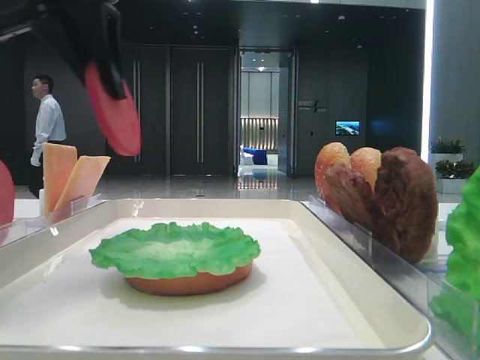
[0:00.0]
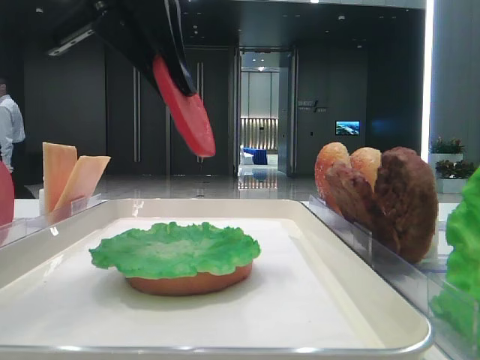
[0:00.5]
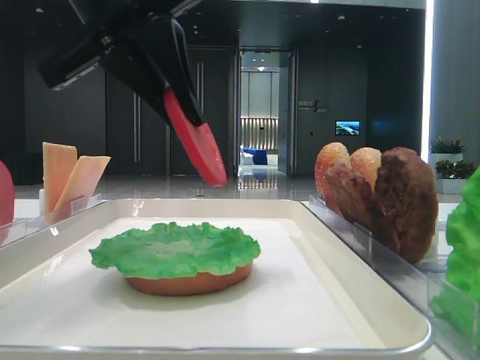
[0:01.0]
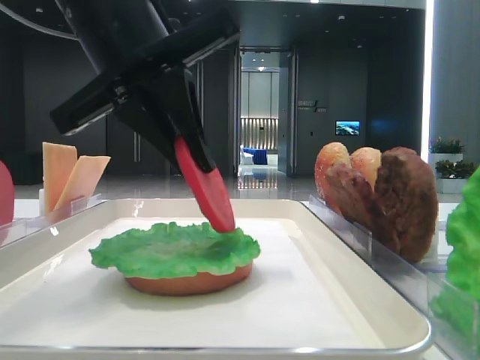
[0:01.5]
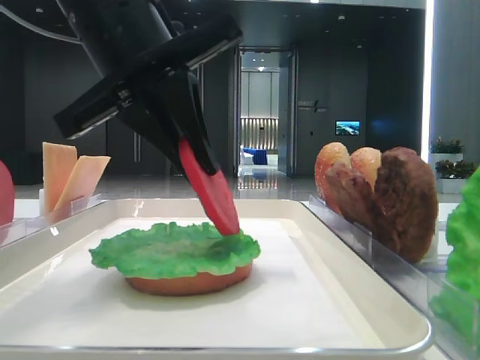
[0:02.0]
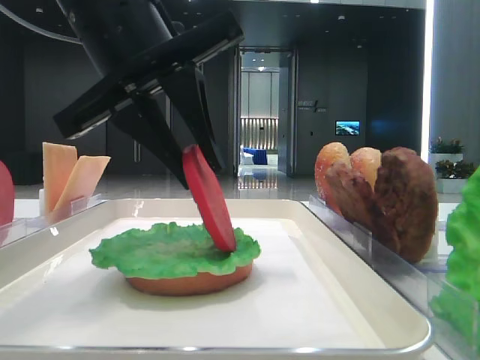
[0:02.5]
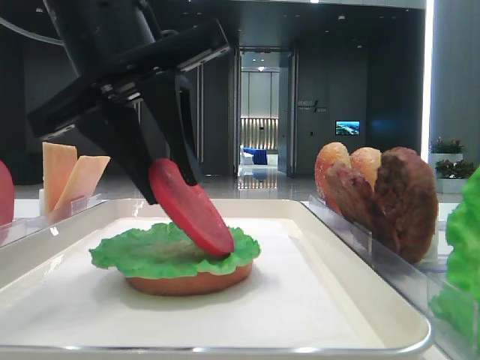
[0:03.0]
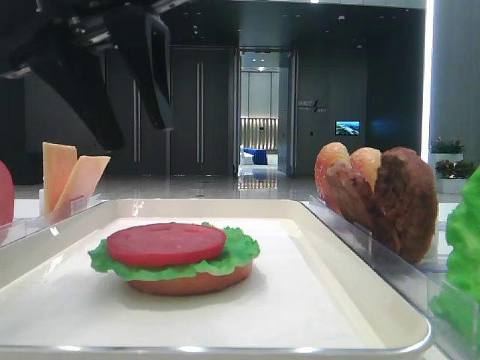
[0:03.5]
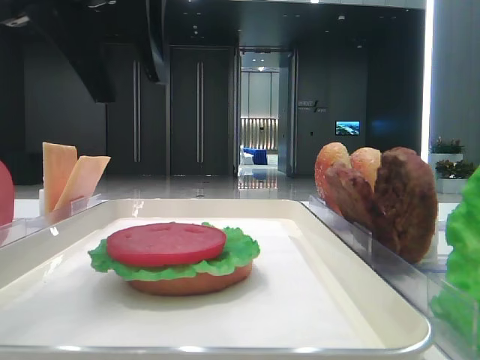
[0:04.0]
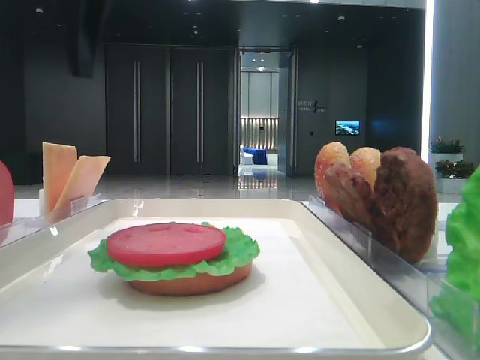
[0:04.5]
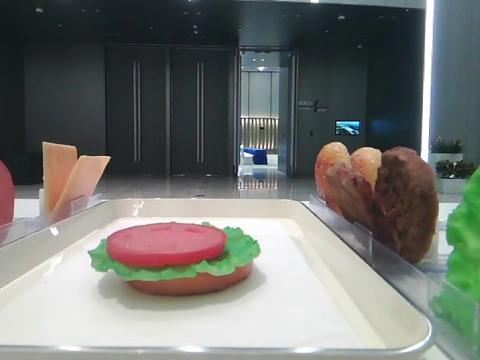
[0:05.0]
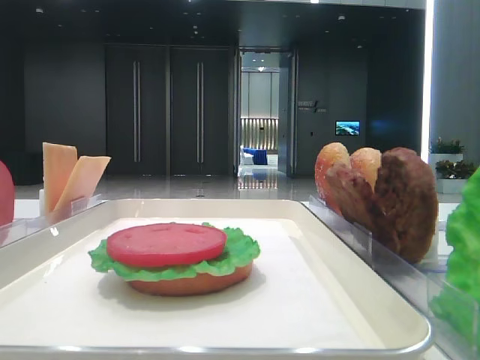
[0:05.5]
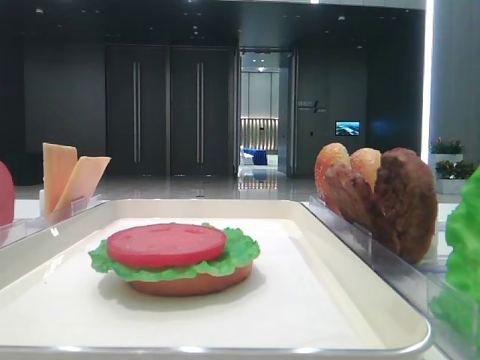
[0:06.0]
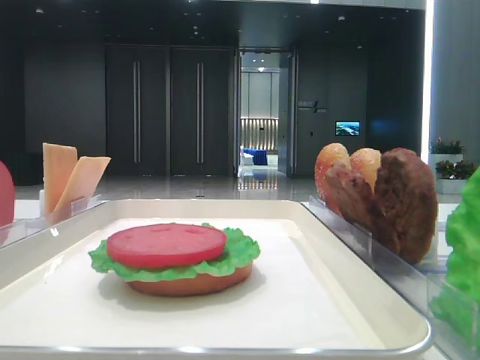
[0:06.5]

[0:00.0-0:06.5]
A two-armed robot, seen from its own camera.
Step, 0:00.0 to 0:03.0: Place the tomato slice on the lettuce leaf with the left hand.
0:00.0 to 0:02.0: The left gripper heads downward and to the right, covering roughly 10 cm.
0:02.0 to 0:04.5: The left gripper goes about 10 cm upward and to the left, and opens its fingers.
0:04.5 to 0:06.5: The left gripper travels backward and to the left by some 35 cm.

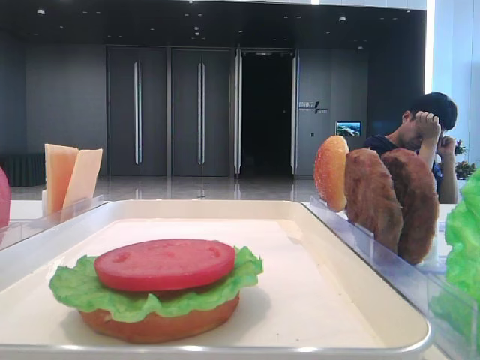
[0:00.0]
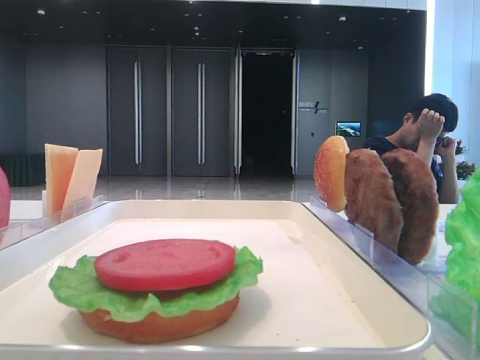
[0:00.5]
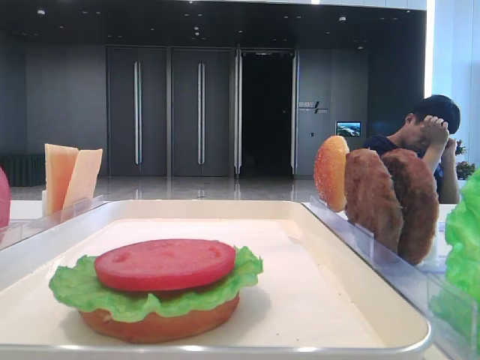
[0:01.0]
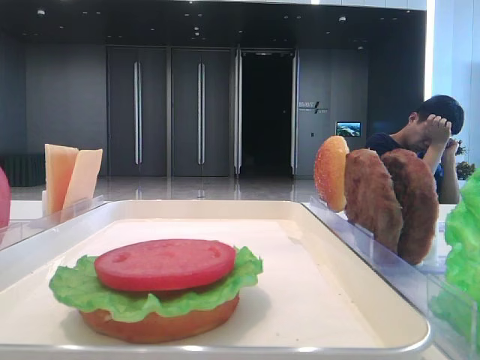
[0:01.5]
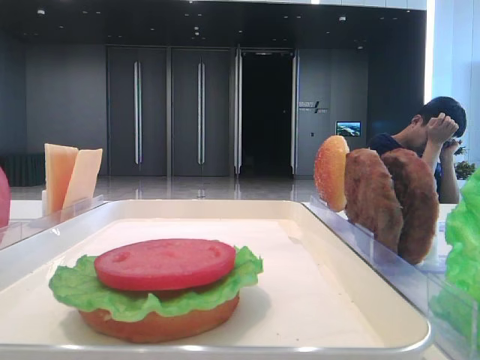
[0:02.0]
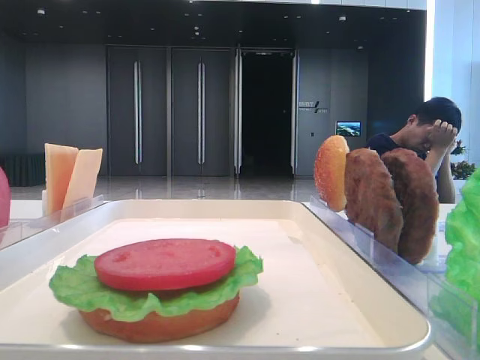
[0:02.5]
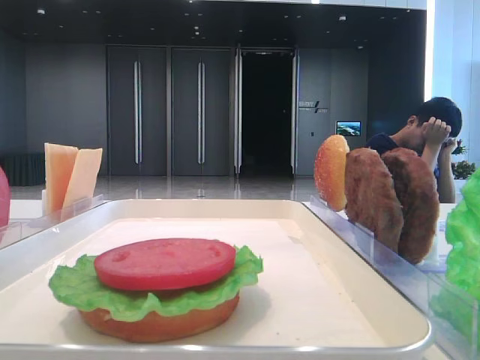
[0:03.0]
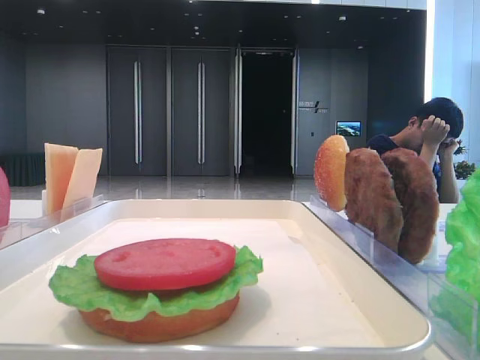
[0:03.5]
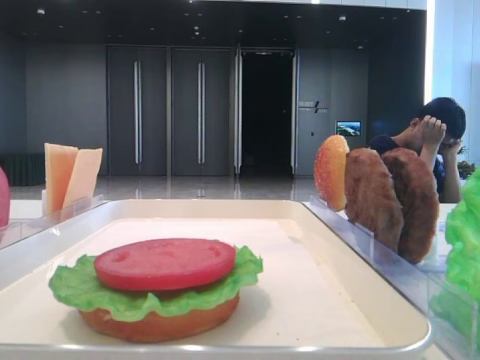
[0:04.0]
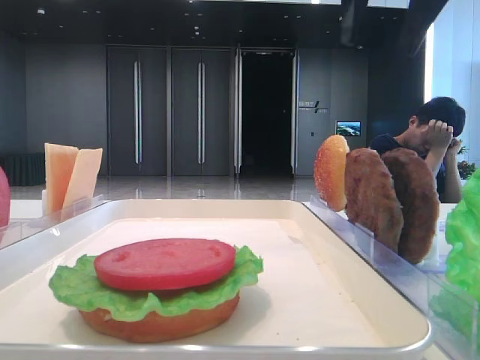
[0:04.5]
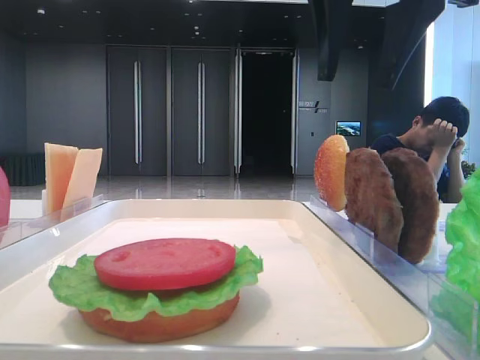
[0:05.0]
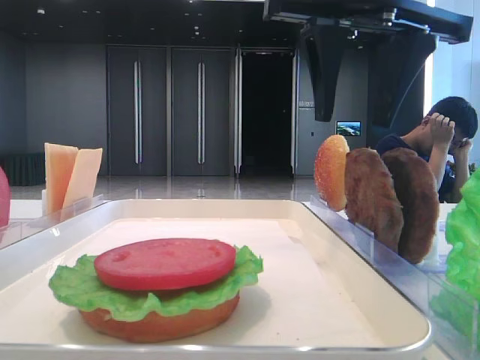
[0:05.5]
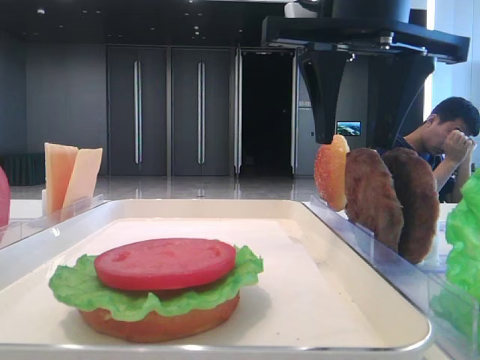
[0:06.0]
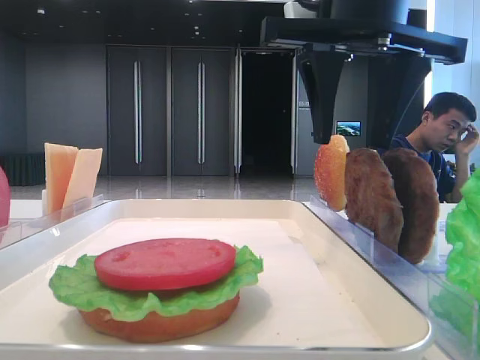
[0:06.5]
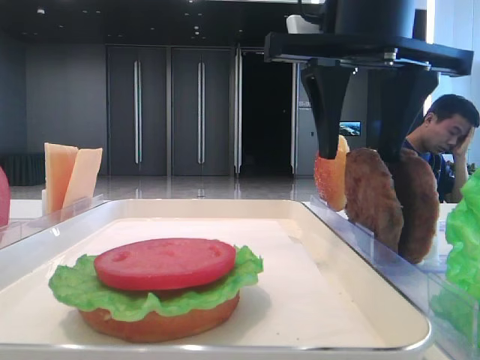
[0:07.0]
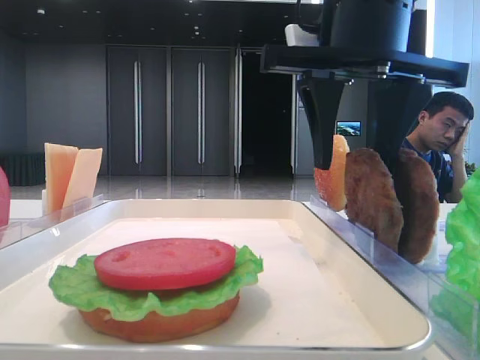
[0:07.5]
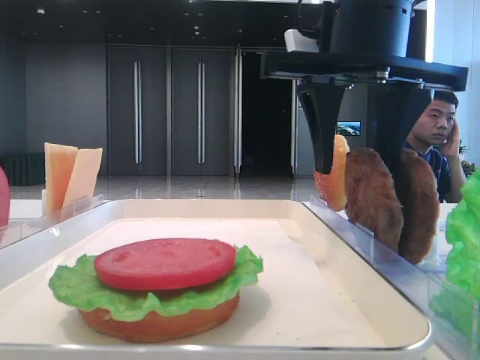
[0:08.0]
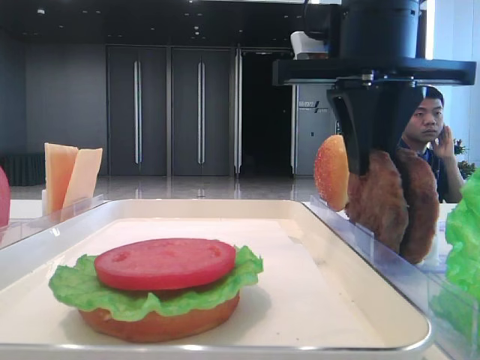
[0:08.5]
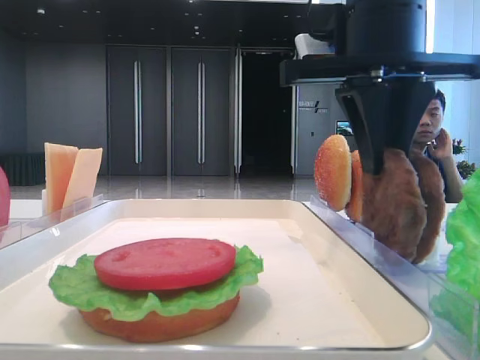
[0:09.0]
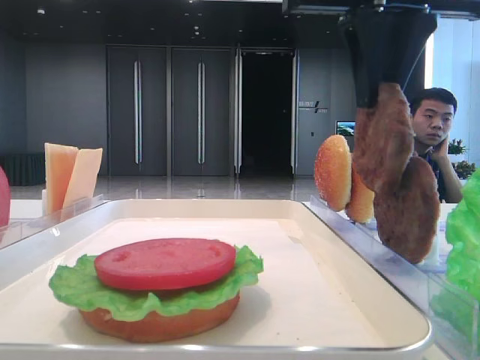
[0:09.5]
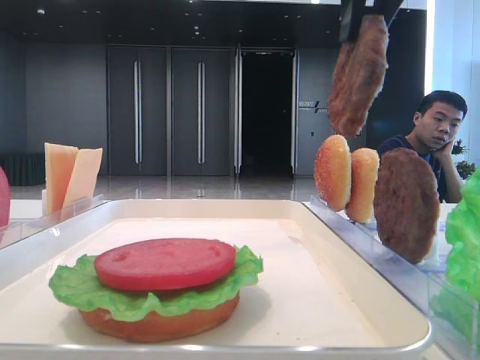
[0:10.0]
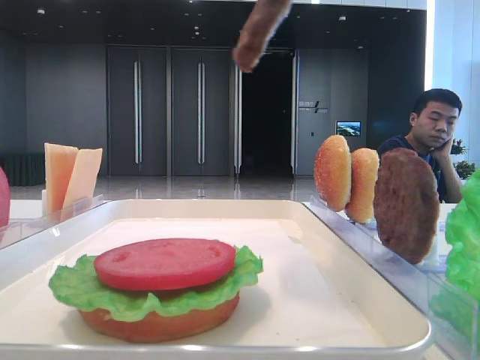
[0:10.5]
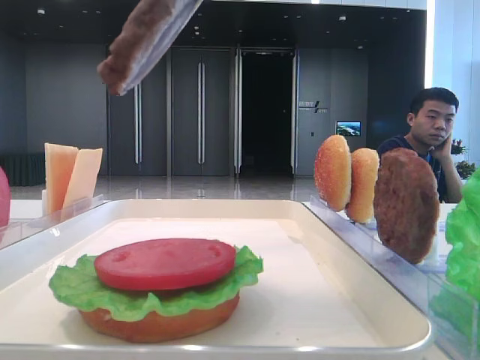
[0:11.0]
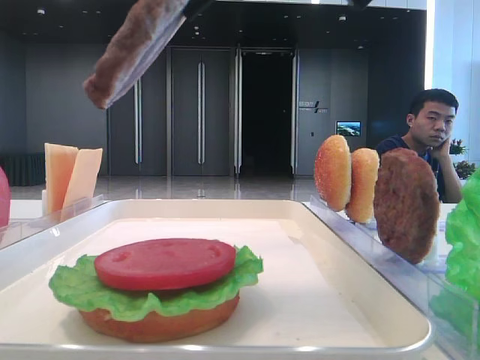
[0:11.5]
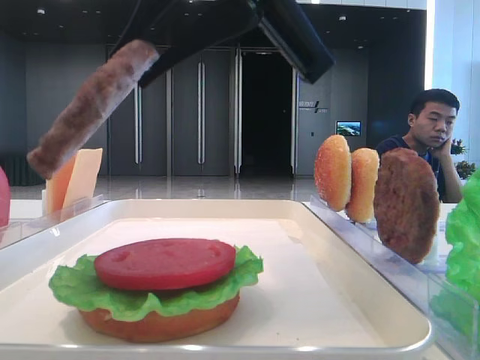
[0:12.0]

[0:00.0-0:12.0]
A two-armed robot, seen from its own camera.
Step, 0:00.0 to 0:08.5: Grab the patty with the right hand.
0:02.0 to 0:04.0: The right gripper goes approximately 20 cm forward.
0:04.0 to 0:06.0: The right gripper moves to the left and downward, some 15 cm.
0:06.0 to 0:08.0: The grippers stay close to where they were, moving slightly.
0:08.0 to 0:10.0: The right gripper moves upward, some 10 cm, and closes up.
0:10.0 to 0:12.0: The right gripper shifts about 10 cm to the left, downward and backward.

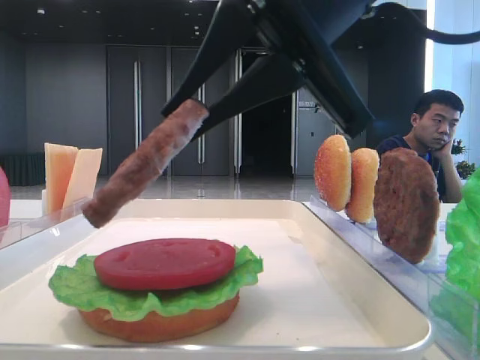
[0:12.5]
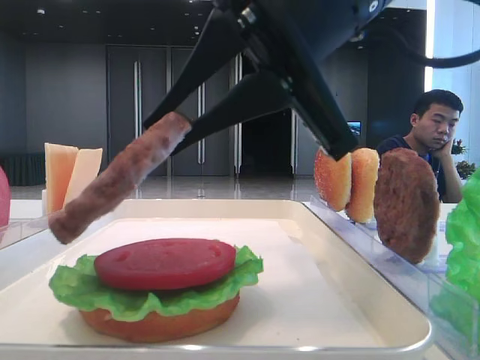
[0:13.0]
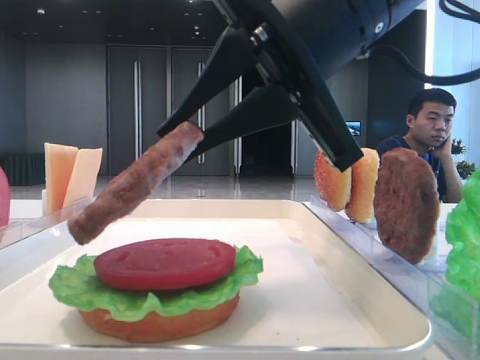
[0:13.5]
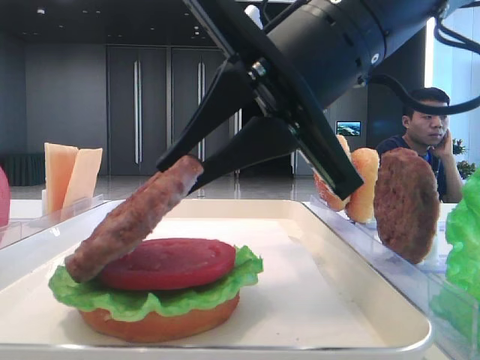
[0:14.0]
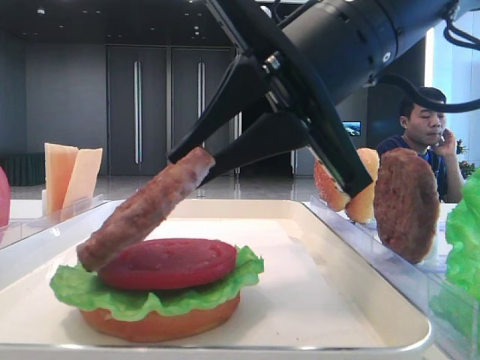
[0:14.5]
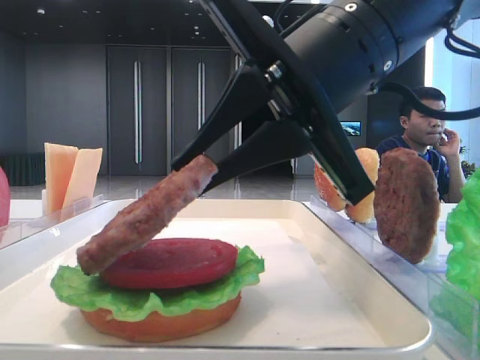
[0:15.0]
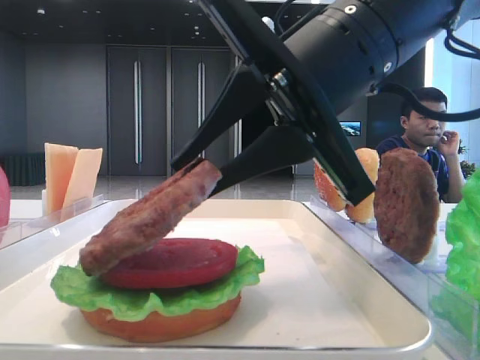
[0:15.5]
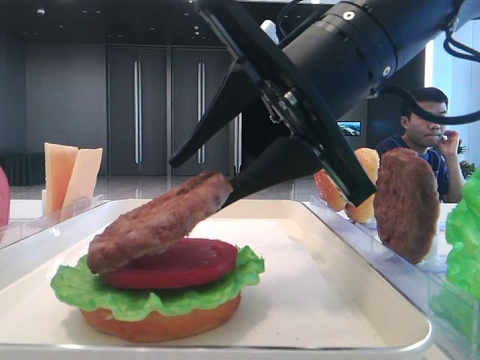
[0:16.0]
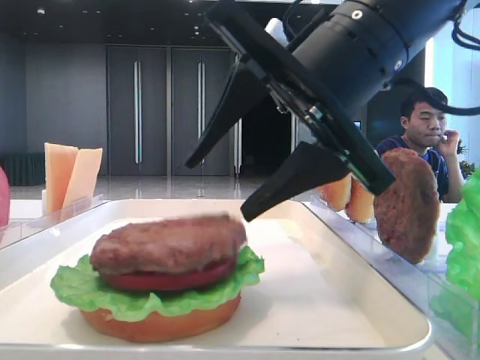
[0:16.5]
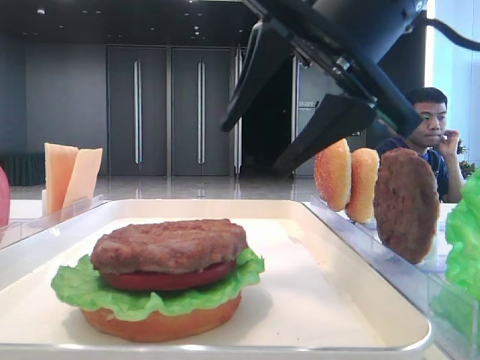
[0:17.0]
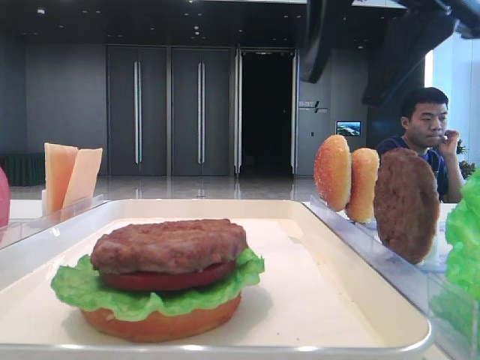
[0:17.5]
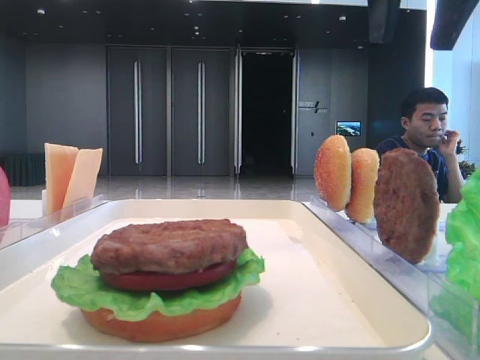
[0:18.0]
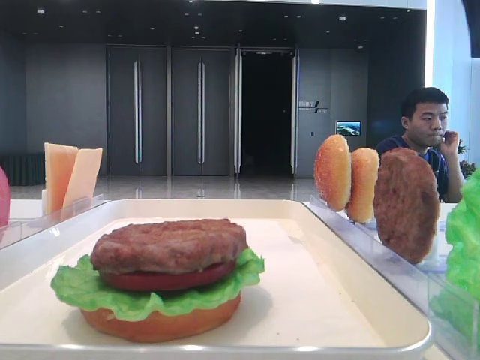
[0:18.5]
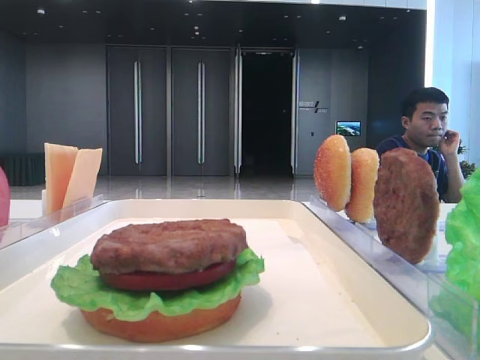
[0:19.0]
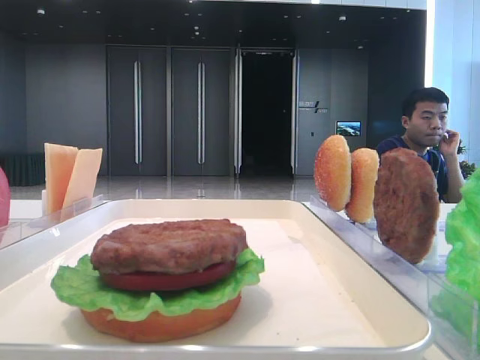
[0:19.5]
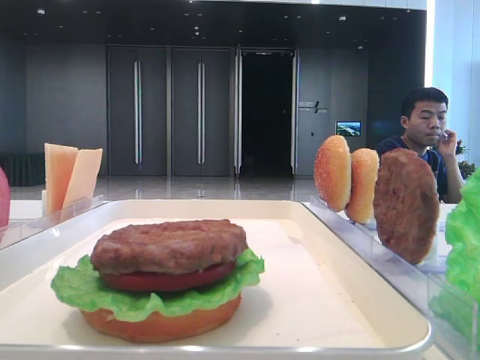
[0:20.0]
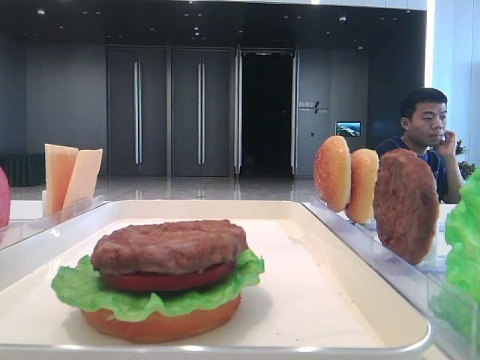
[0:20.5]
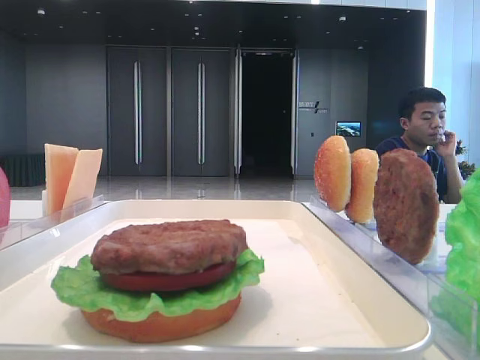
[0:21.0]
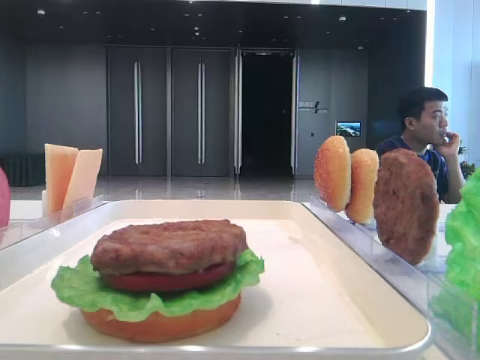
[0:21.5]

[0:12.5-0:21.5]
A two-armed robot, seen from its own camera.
Step, 0:12.5 to 0:16.0: Place the patty on the tomato slice with the right hand.
0:12.5 to 0:14.5: The grippers move only a little.
0:14.5 to 0:17.0: The right gripper opens up.
0:17.0 to 0:19.5: The right gripper shifts about 25 cm to the right and upward.
0:19.5 to 0:21.5: The right gripper is displaced backward by approximately 25 cm.
